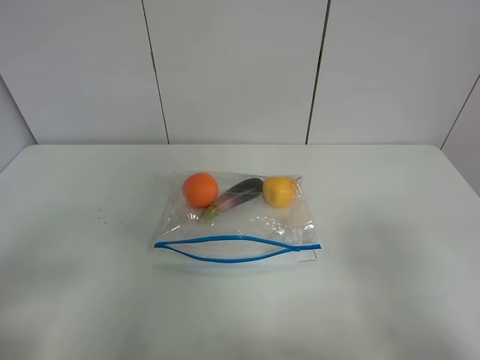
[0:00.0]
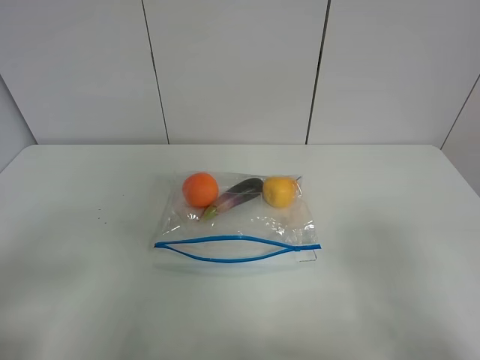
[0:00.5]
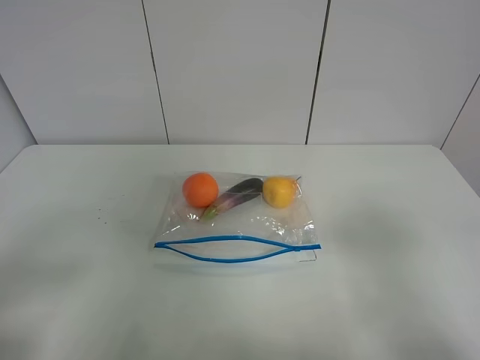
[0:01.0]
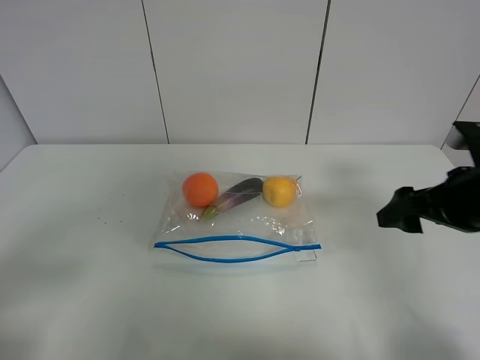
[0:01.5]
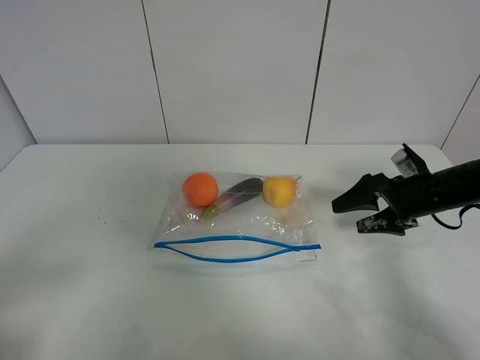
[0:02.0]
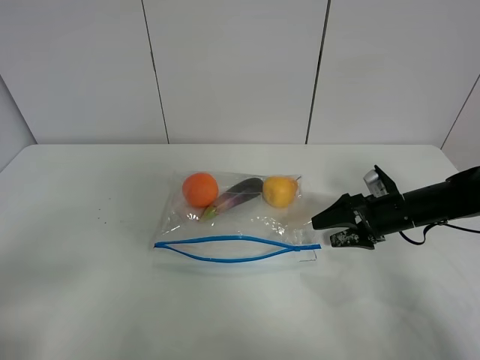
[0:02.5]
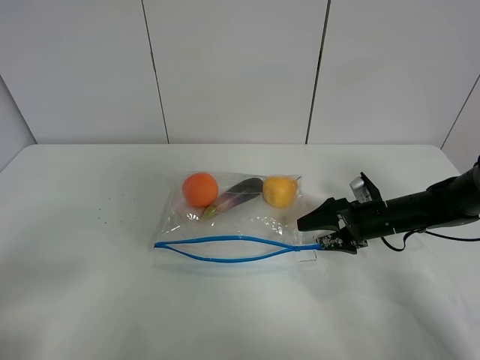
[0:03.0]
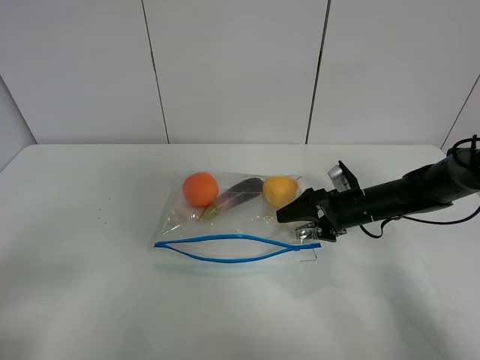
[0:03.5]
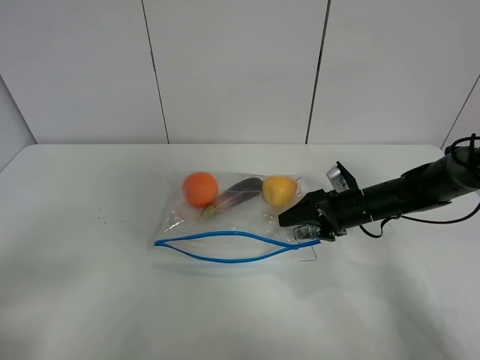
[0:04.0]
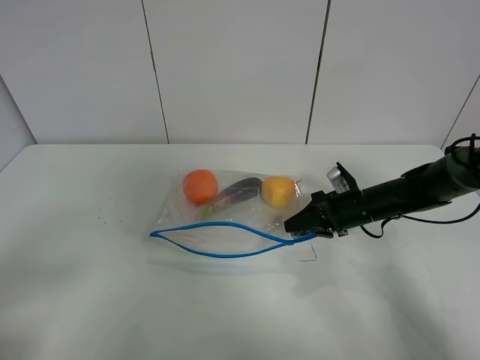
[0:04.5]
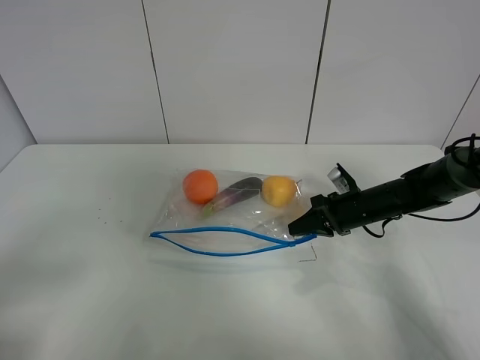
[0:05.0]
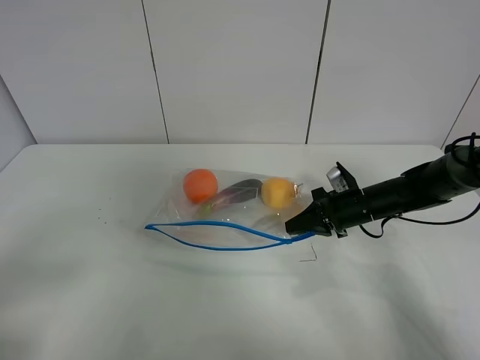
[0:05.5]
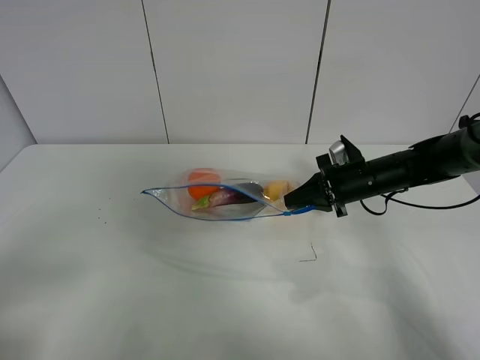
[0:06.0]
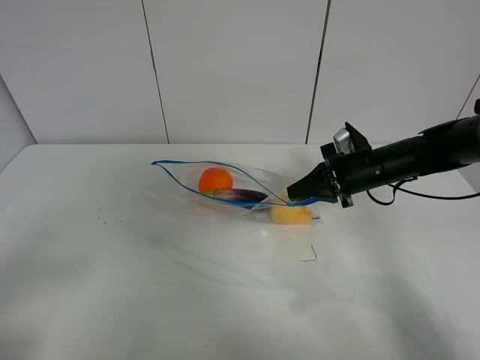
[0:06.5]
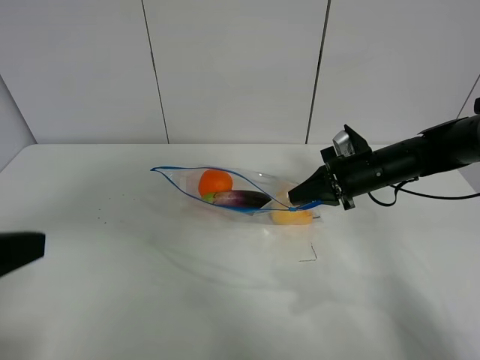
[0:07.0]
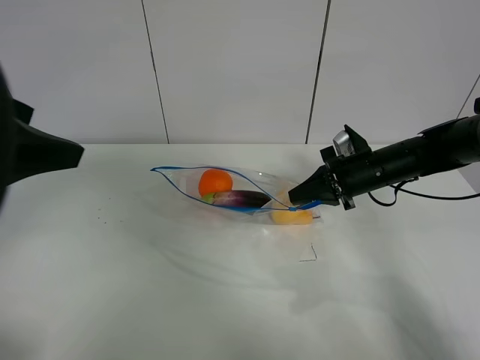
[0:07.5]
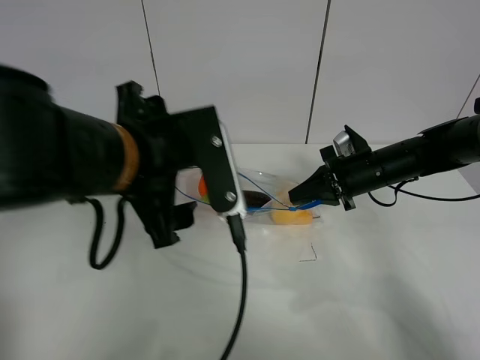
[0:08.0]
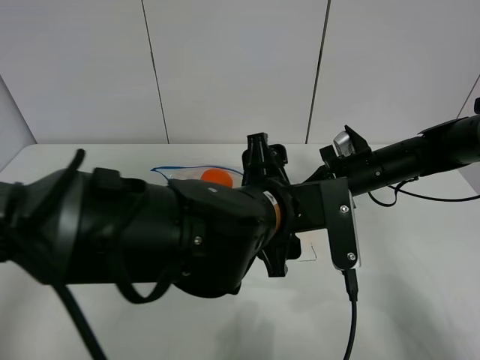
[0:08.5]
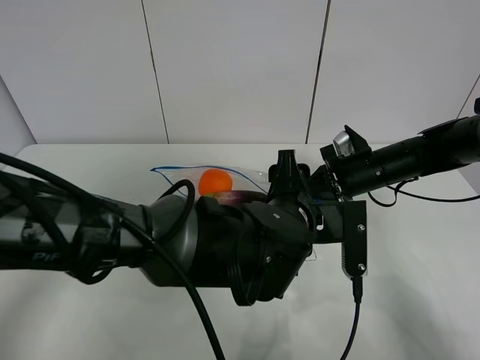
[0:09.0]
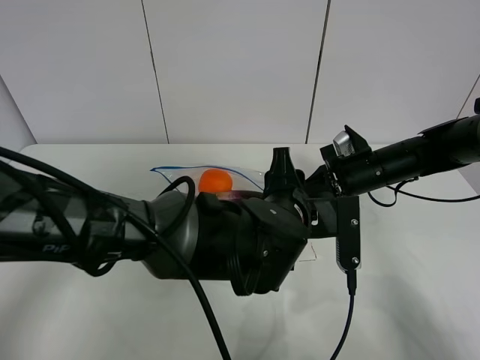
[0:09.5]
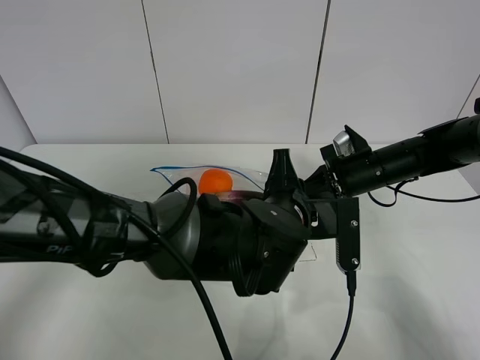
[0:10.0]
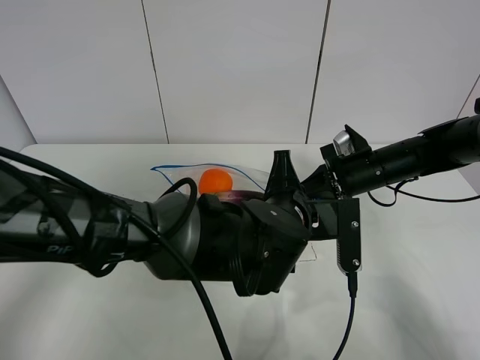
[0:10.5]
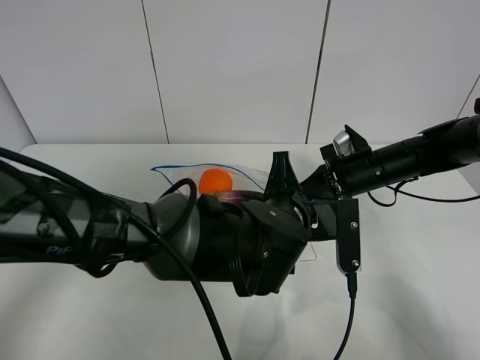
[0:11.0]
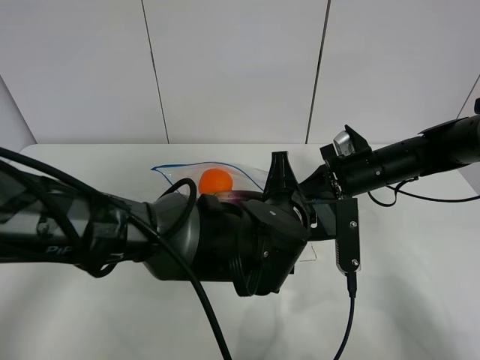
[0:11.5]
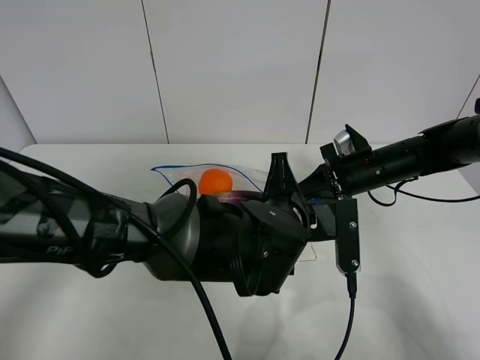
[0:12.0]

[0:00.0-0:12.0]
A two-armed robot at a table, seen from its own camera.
Step, 0:00.0 to 0:04.5: Grasp the fruit bag with right gripper.
Step, 0:05.0 to 0:06.0: Lift the fruit bag with your right gripper.
0:00.0 to 0:02.0: The right gripper heads forward and downward, covering about 35 cm.
0:02.0 to 0:04.0: The right gripper travels to the left and downward by roughly 10 cm.
0:04.0 to 0:06.0: The right gripper shifts some 5 cm upward, and closes its fingers.
0:06.0 to 0:08.0: The left gripper moves to the right and forward, some 30 cm.
0:08.0 to 0:10.0: The left gripper heads to the right and downward, covering about 15 cm, and closes its fingers.
0:10.0 to 0:12.0: The two grippers keep their place.

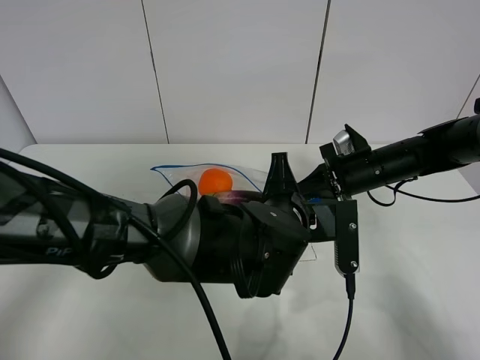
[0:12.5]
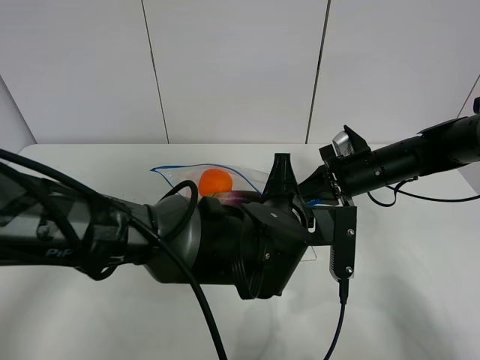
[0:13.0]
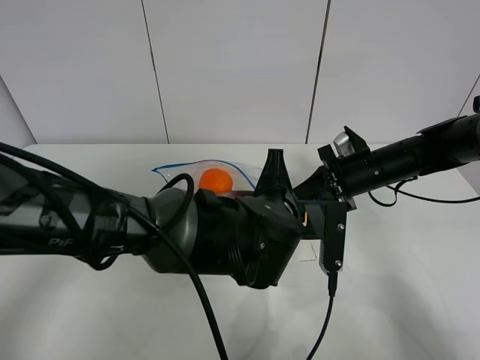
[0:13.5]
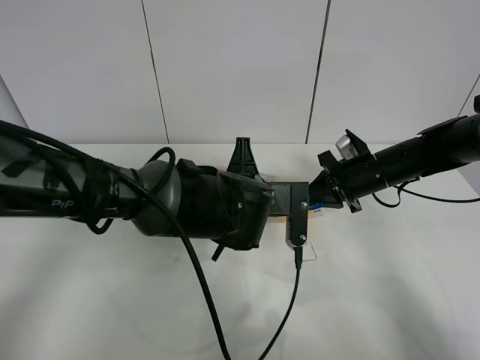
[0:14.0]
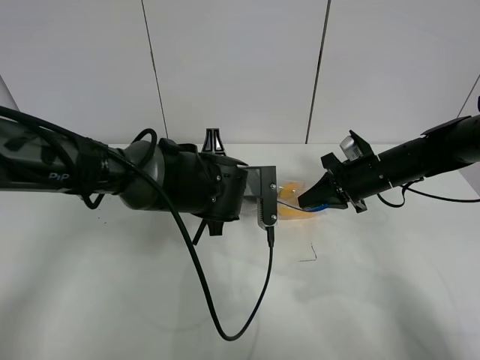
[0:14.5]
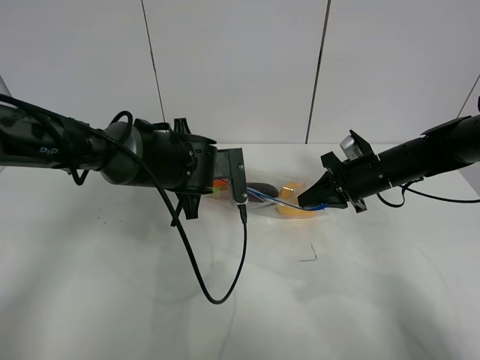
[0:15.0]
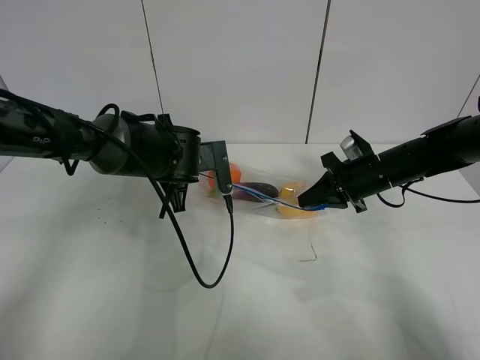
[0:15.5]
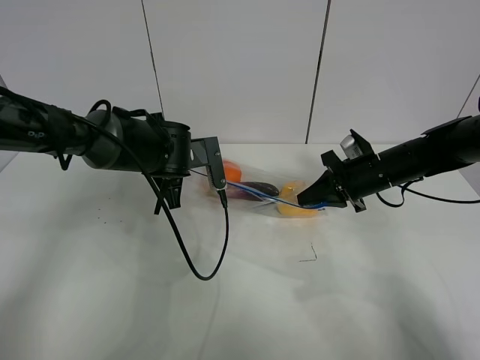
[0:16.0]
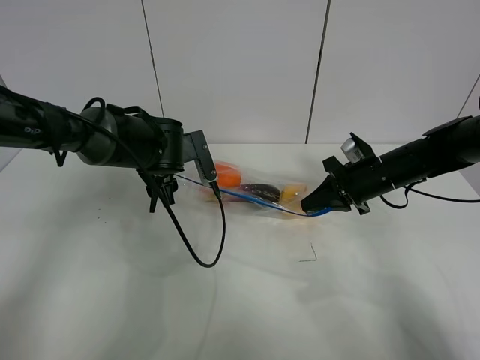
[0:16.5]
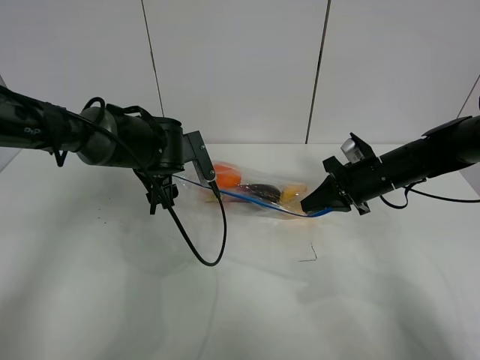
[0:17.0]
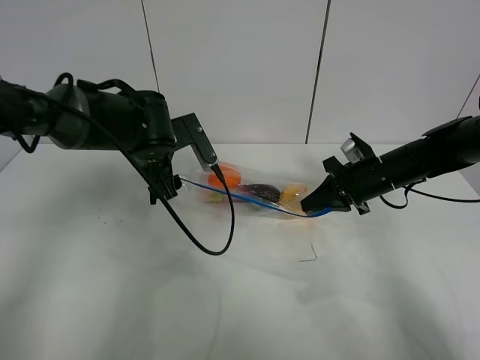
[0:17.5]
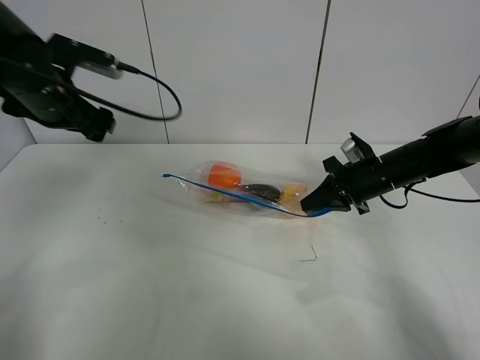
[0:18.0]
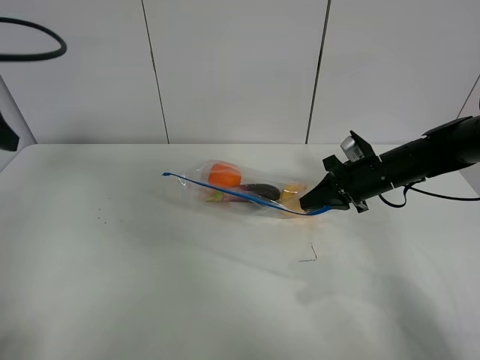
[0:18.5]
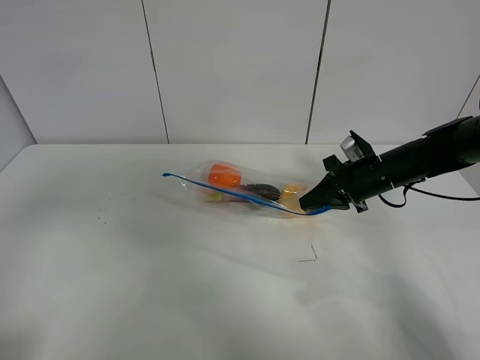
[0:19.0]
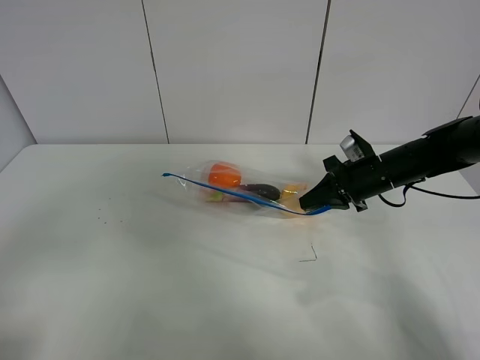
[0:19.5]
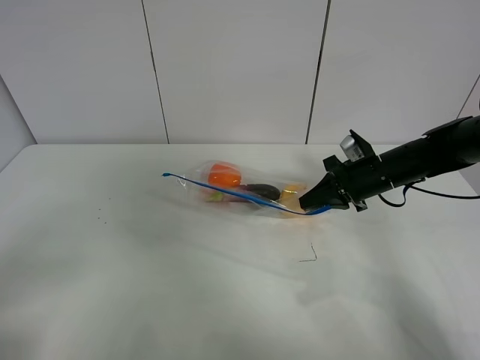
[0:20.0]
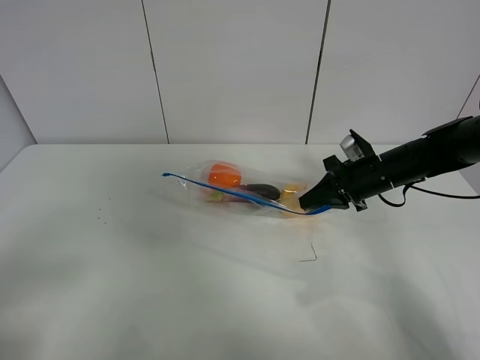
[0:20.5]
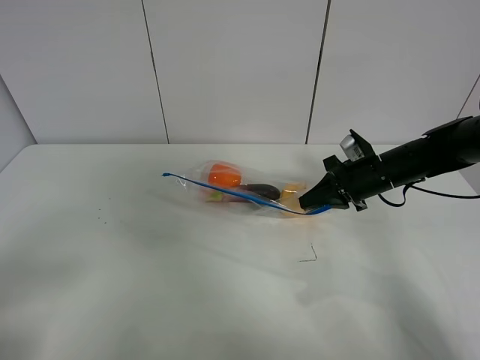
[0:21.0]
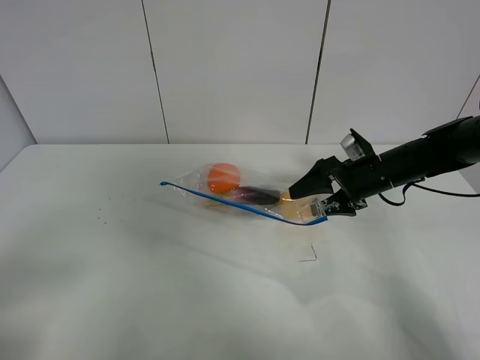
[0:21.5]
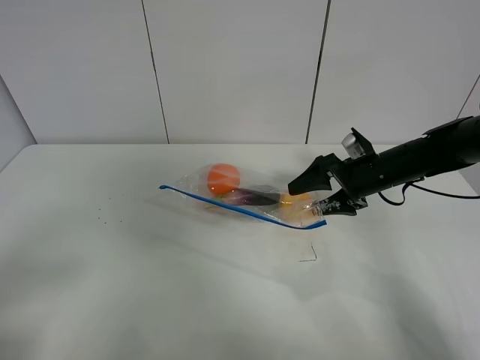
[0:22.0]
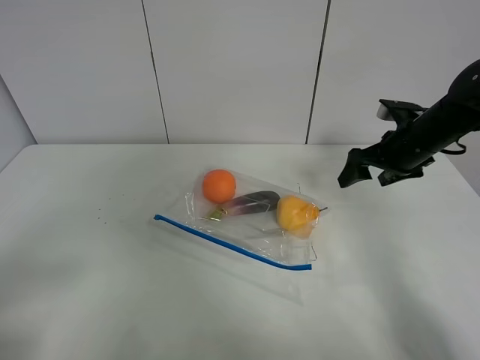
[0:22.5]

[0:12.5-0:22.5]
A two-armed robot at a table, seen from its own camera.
Step, 0:12.5 to 0:16.0: Pull the fruit bag with left gripper.
0:12.5 to 0:14.5: The left gripper goes approximately 10 cm forward and to the left.
0:14.5 to 0:16.5: The left gripper moves to the left and forward, roughly 10 cm, and opens its fingers.
0:16.5 to 0:18.5: The left gripper goes about 30 cm to the left, upward and backward.
0:18.5 to 0:20.5: The left gripper goes approximately 20 cm backward.
0:20.5 to 0:22.5: The right gripper heads upward, covering approximately 5 cm, and opens.

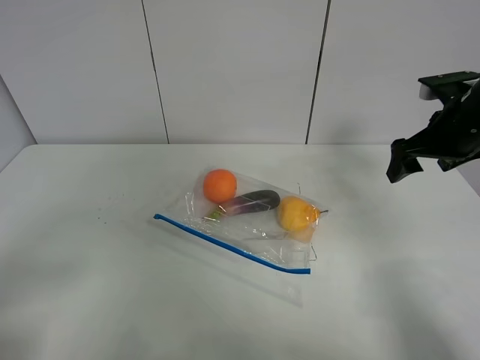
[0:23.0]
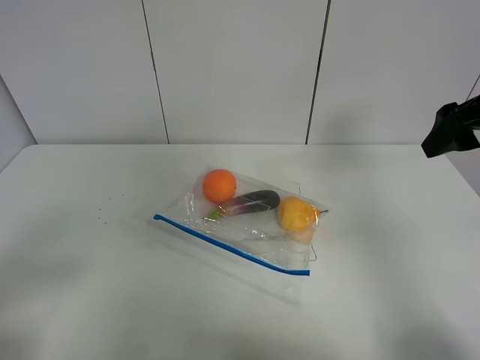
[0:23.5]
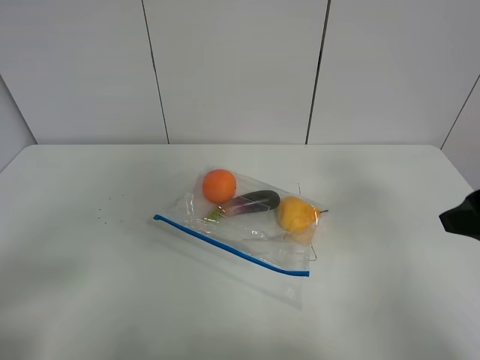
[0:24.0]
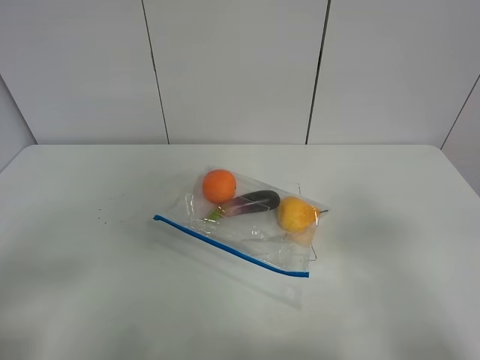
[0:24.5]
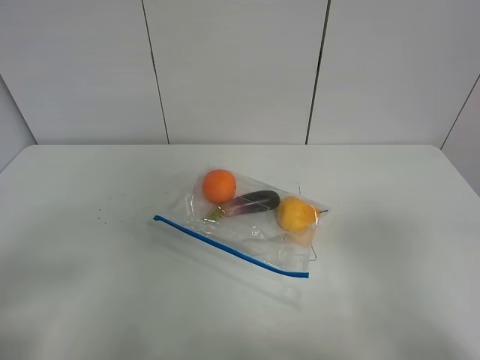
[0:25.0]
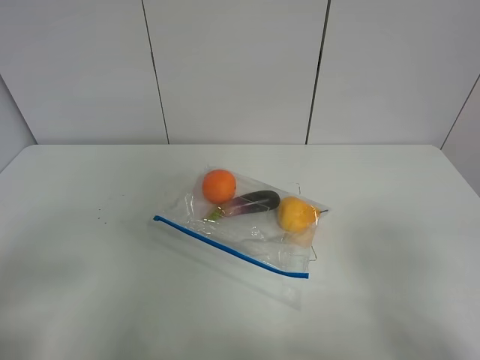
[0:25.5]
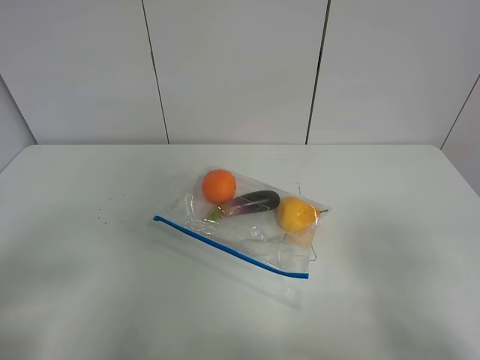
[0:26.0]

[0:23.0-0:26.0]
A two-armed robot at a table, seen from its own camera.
0:23.0 to 0:24.5: The right gripper moves backward, some 30 cm.
